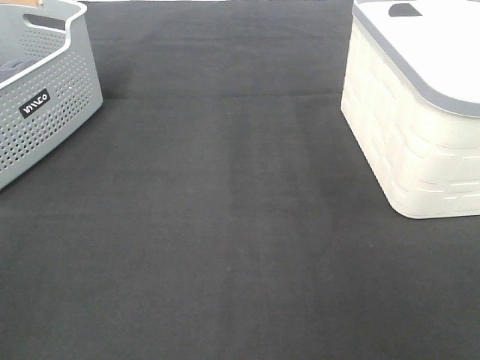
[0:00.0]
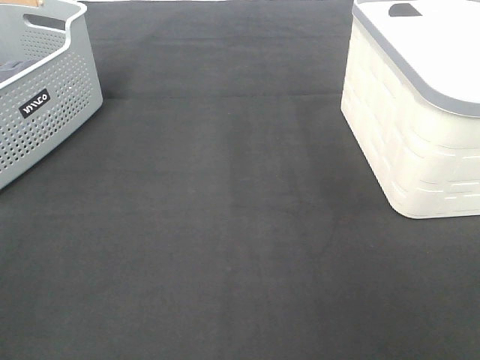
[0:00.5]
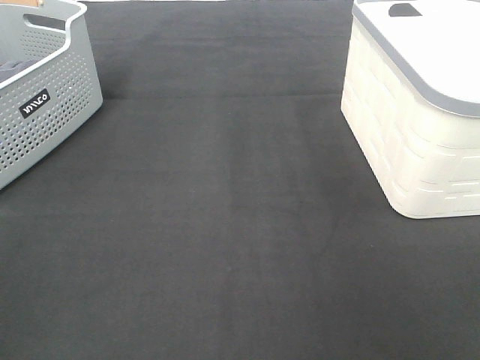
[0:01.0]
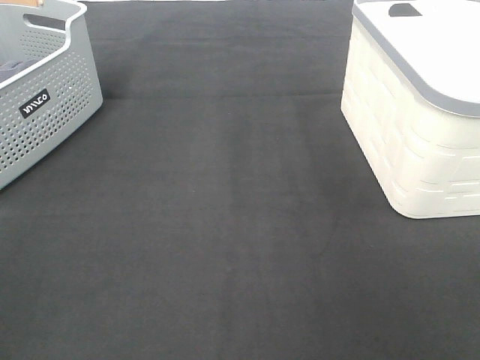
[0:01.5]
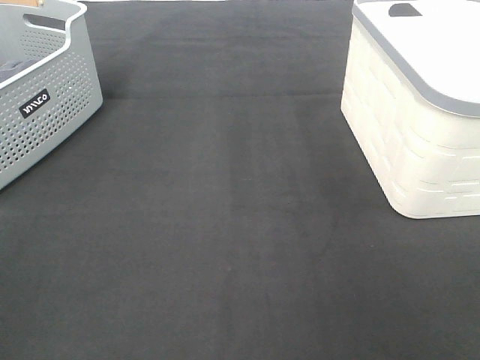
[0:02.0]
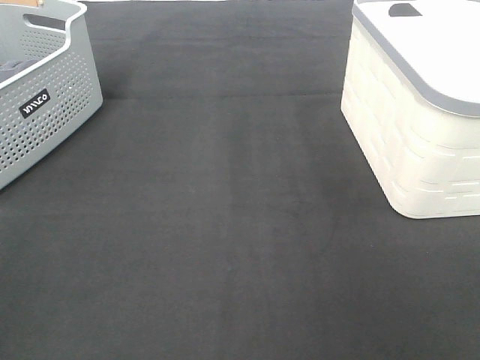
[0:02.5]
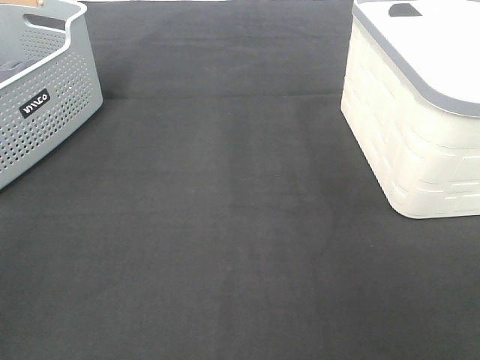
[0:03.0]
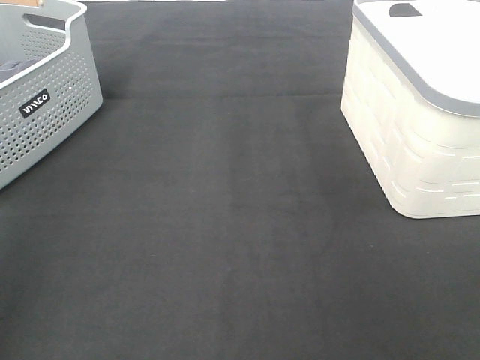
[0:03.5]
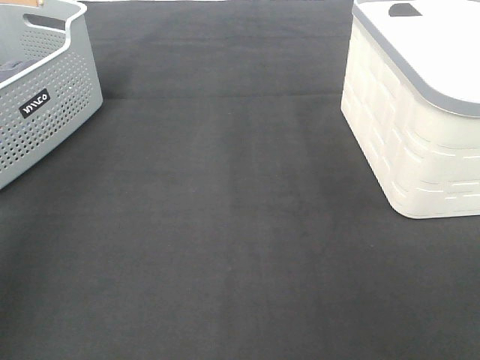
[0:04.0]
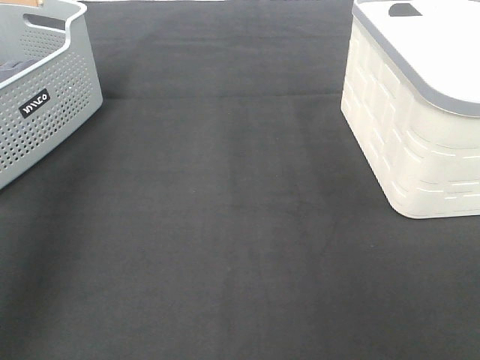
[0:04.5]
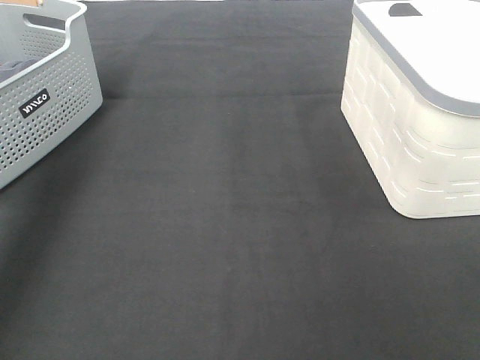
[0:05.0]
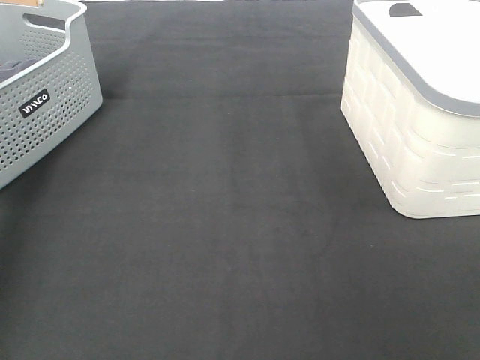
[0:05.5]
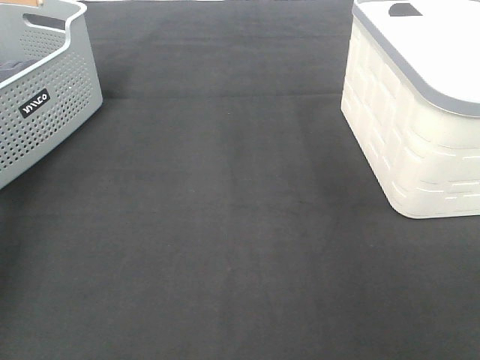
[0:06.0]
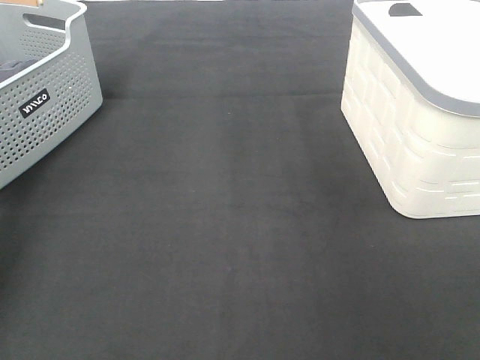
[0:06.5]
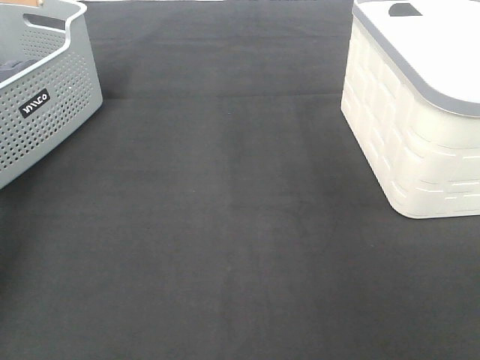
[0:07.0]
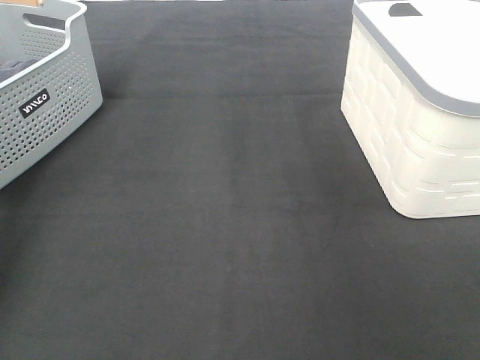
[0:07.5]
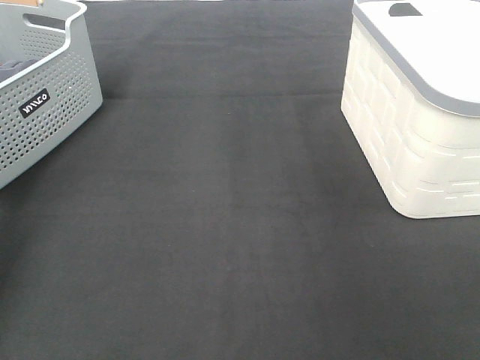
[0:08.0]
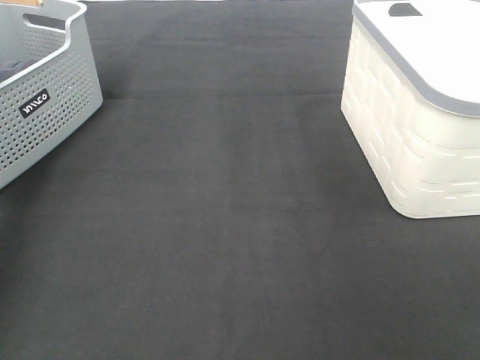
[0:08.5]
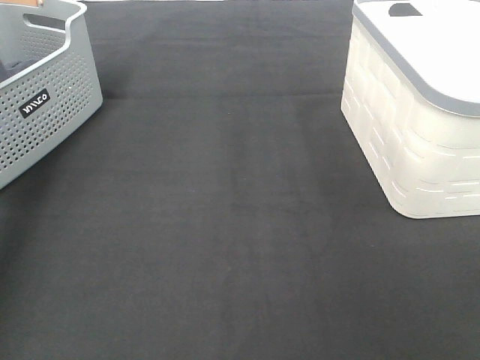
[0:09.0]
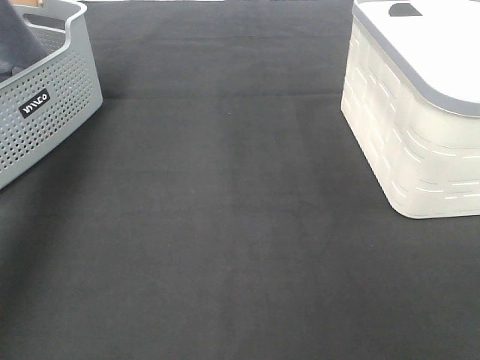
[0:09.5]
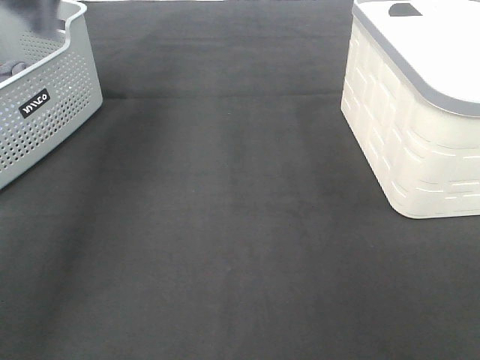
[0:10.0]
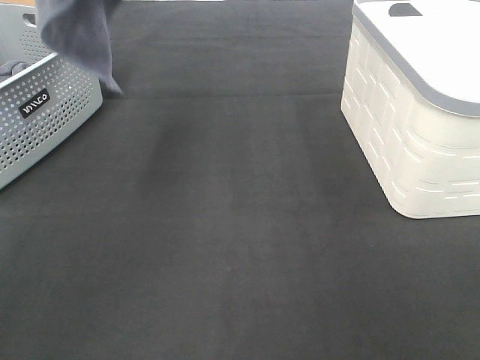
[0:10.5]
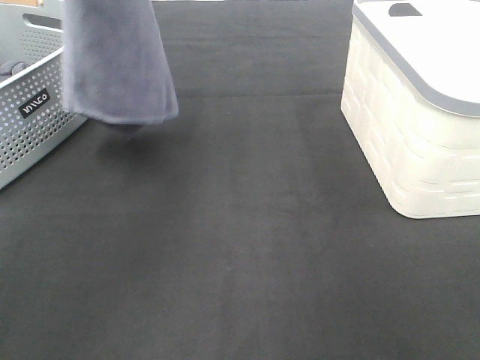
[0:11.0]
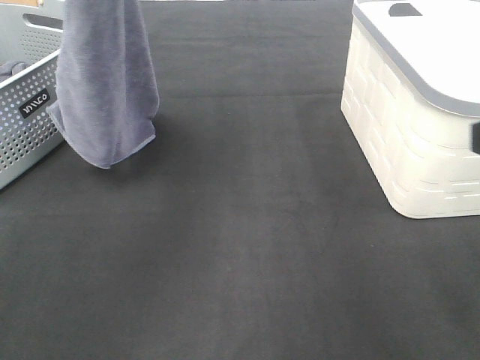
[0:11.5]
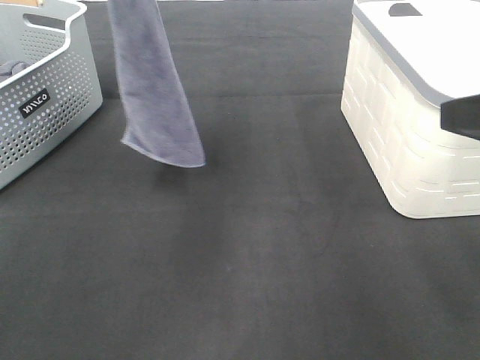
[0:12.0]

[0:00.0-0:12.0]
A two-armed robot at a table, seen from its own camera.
Task of the whole recording: Remove the towel and place it.
0:00.0 to 0:02.0: Both grippers stay about where they are.
0:08.0 to 0:10.0: The left gripper moves upward and to the right, roughly 40 cm.
0:10.0 to 0:12.0: The right gripper moves forward, approximately 15 cm; the left gripper moves downward and to the right, some 20 cm.

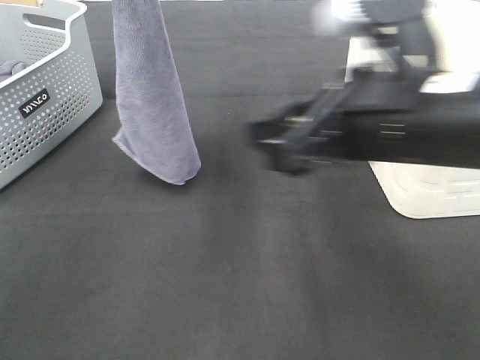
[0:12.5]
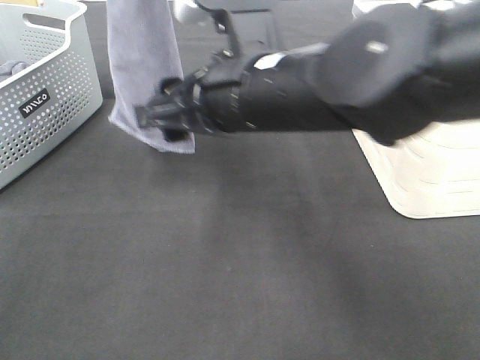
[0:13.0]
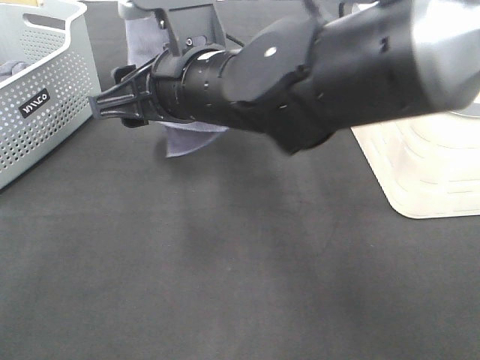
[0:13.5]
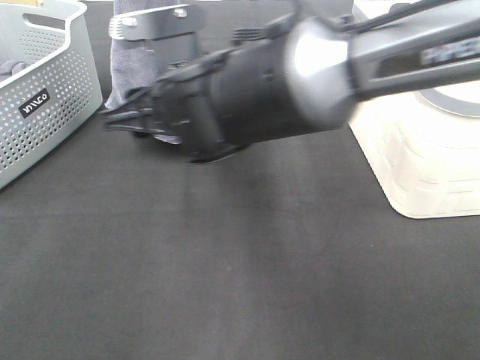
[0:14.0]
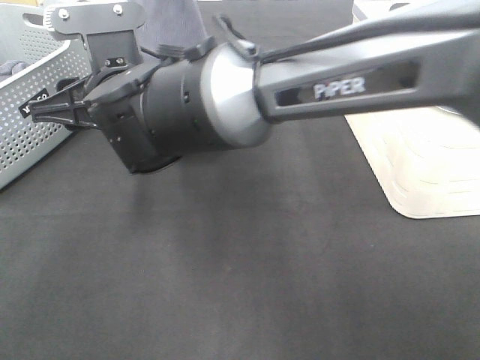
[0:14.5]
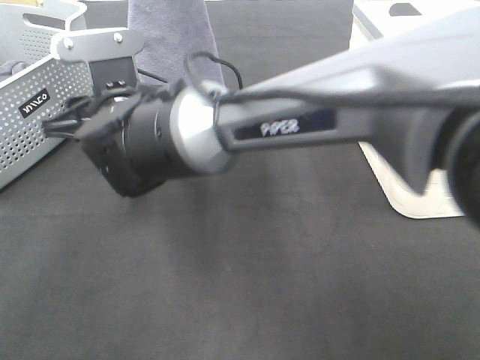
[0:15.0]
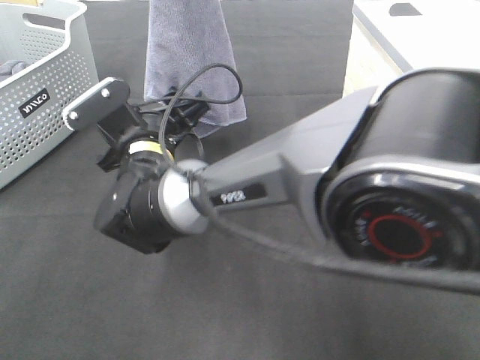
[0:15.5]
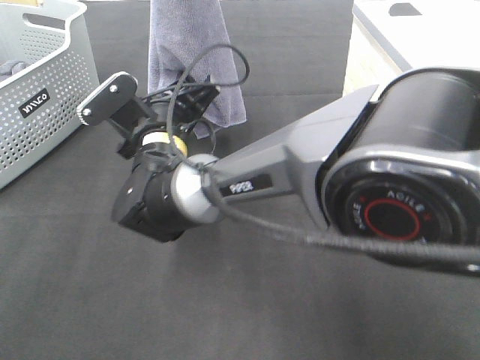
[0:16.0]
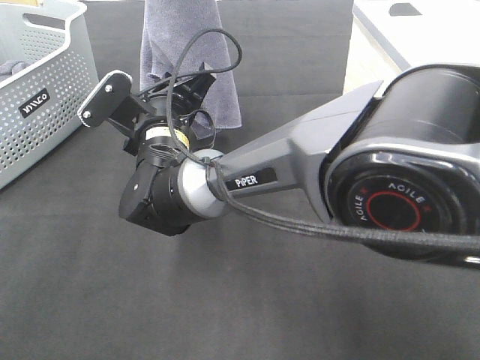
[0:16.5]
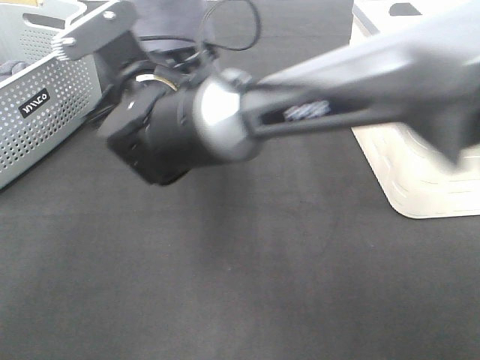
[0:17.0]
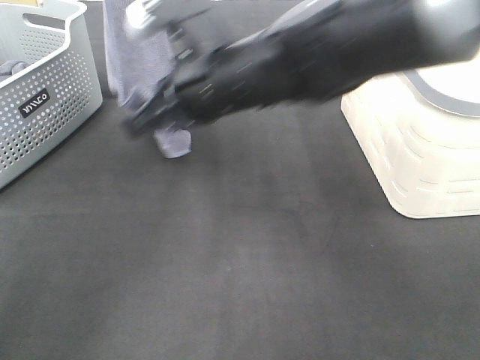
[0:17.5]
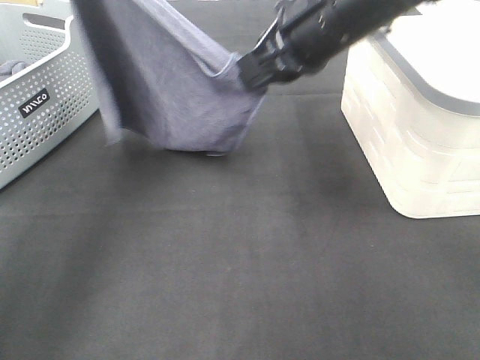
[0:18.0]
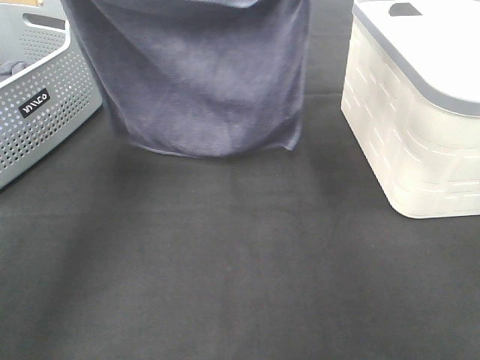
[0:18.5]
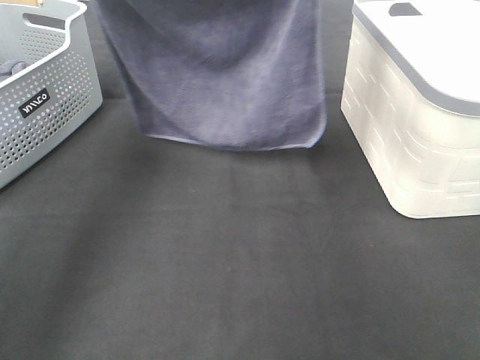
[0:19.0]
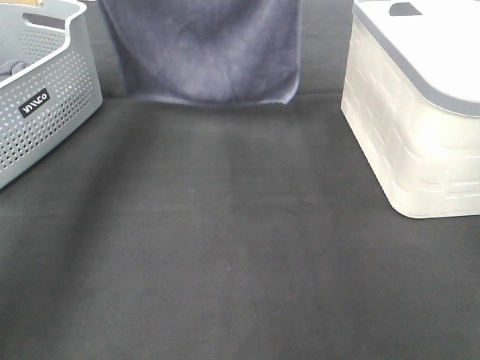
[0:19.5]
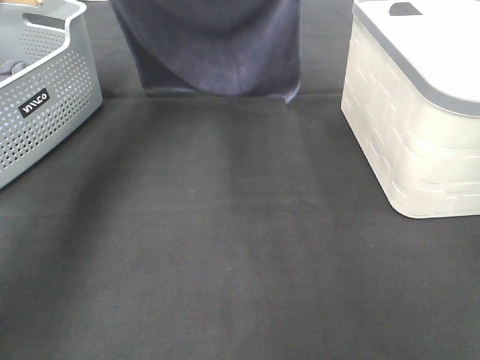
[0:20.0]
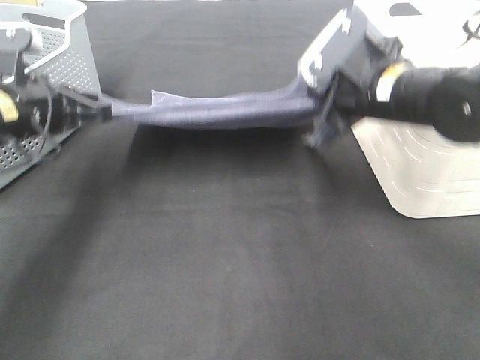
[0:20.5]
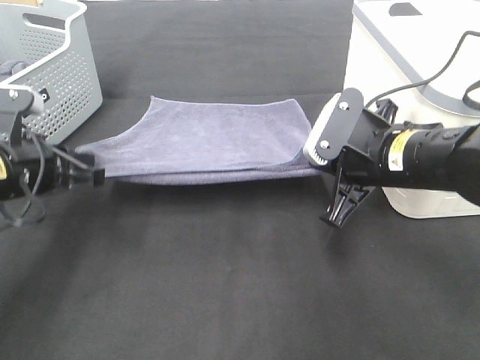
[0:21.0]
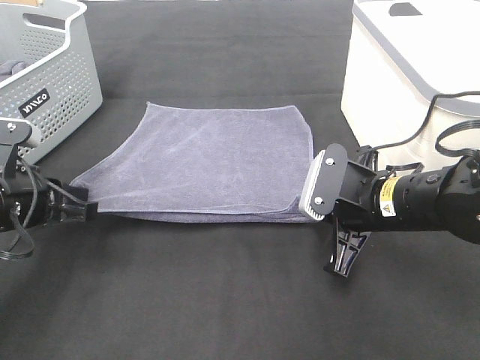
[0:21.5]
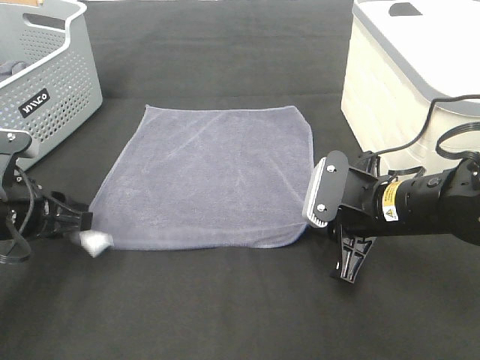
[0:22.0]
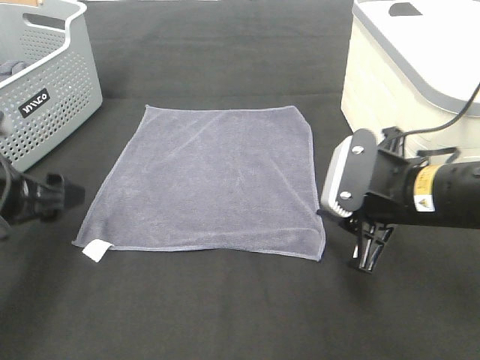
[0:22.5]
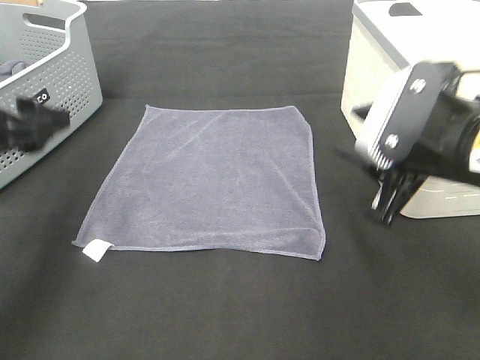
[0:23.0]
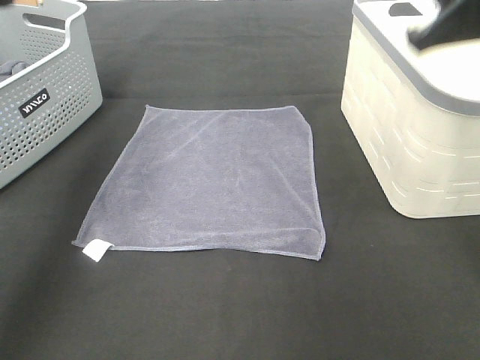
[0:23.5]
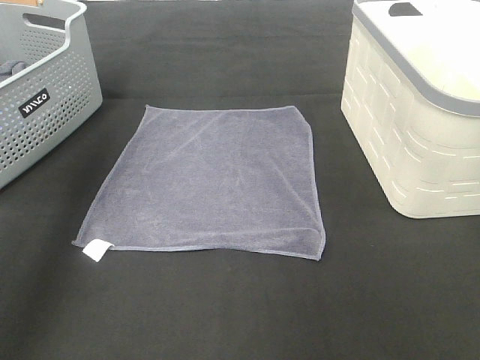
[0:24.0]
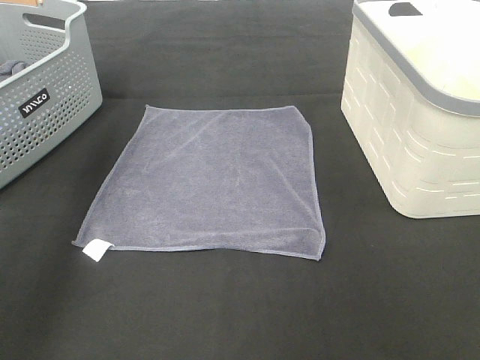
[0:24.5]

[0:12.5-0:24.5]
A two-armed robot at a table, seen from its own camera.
Task of the whole recording: Remove the towel and place it.
Step, 0:12.5 to 0:15.0: Right hand: grab a corner of the grey towel and straighten it.
Step, 0:15.5 to 0:17.5: Left hand: spread the grey towel flat on the table.
Step, 0:15.5 to 0:18.0: Right hand: spread the grey towel flat on the table.
0:12.5 to 0:14.5: The left gripper shifts by approximately 5 cm. Meanwhile the right gripper shifts approximately 25 cm to the left and forward.
0:14.5 to 0:16.5: The right gripper moves downward, roughly 10 cm, and closes its fingers.
0:16.5 to 0:18.5: The right gripper moves upward and to the right, approximately 30 cm. The left gripper is displaced to the left and downward by roughly 15 cm.
0:18.5 to 0:20.5: Both grippers move downward, about 20 cm.
0:20.5 to 0:22.5: Both grippers travel together backward, approximately 10 cm. The right gripper opens its fingers. Meanwhile the left gripper opens.
0:22.5 to 0:24.5: The right gripper shifts about 30 cm upward, while the left gripper travels upward and forward by roughly 30 cm.

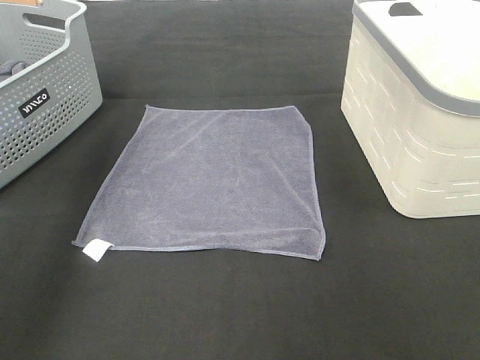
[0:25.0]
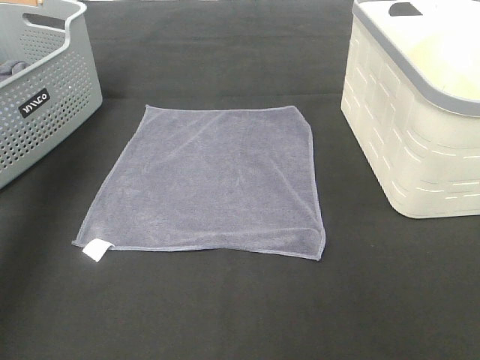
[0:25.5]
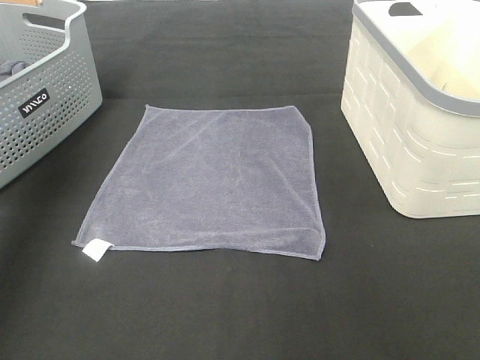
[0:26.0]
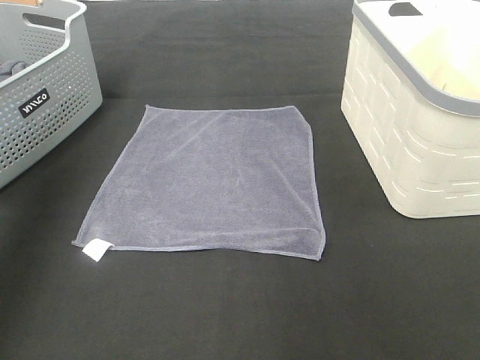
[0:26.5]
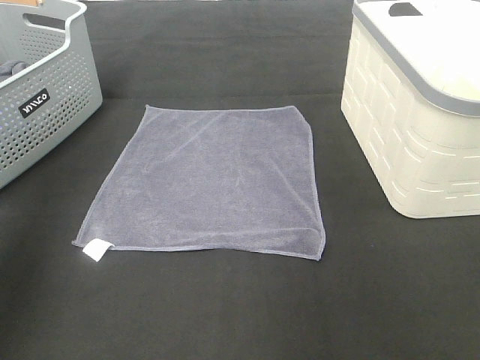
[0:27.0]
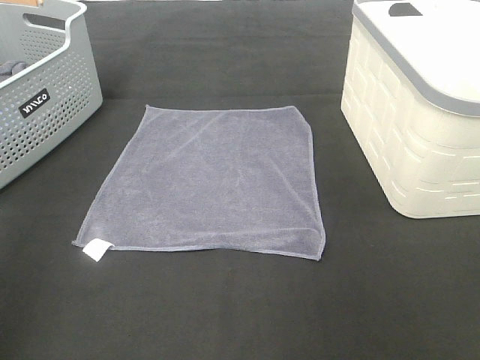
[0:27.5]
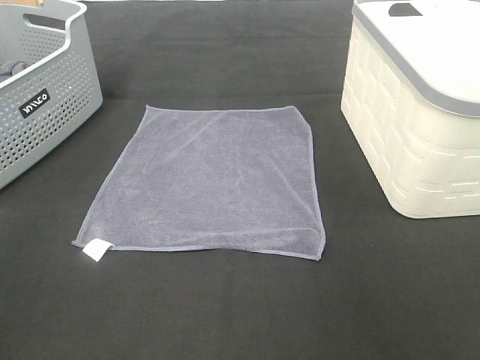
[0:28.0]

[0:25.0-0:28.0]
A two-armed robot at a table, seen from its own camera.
Task of the whole recording: Remove the towel and place it.
0:25.0 to 0:26.5: The left gripper goes about 10 cm backward and to the left; the right gripper shifts roughly 10 cm to the right.
0:26.5 to 0:28.0: The left gripper shifts approximately 30 cm backward.
